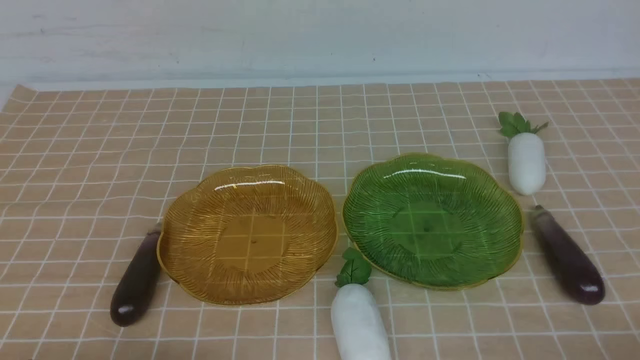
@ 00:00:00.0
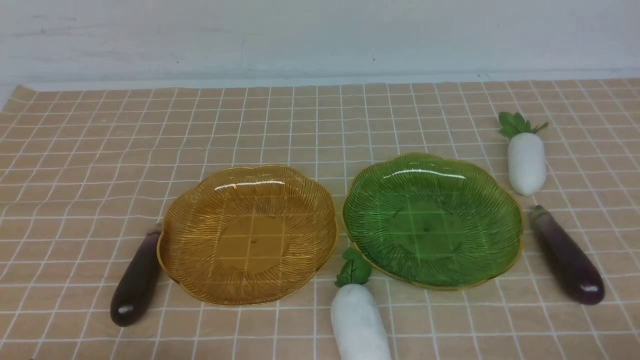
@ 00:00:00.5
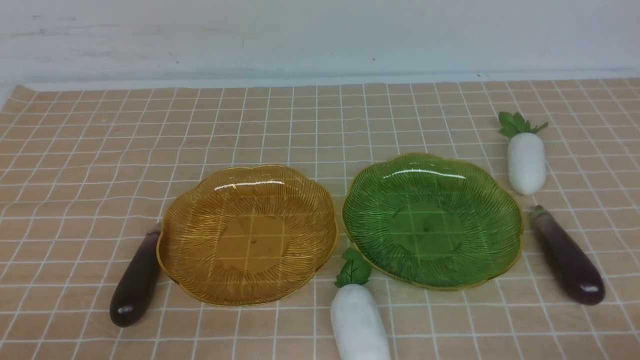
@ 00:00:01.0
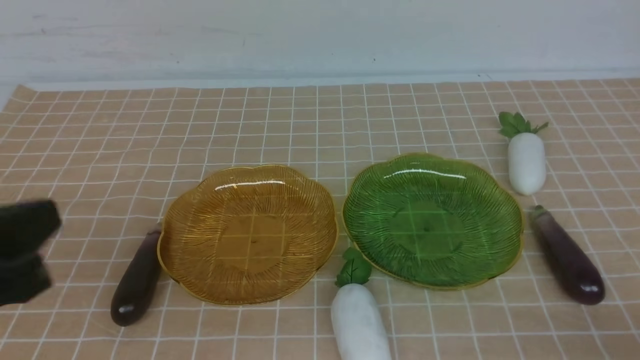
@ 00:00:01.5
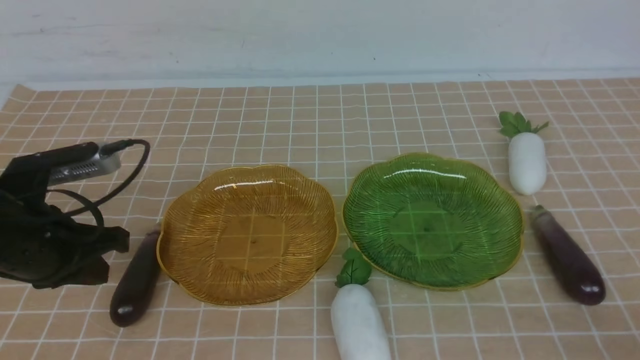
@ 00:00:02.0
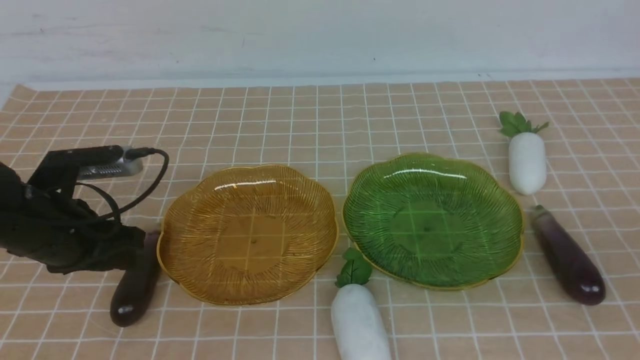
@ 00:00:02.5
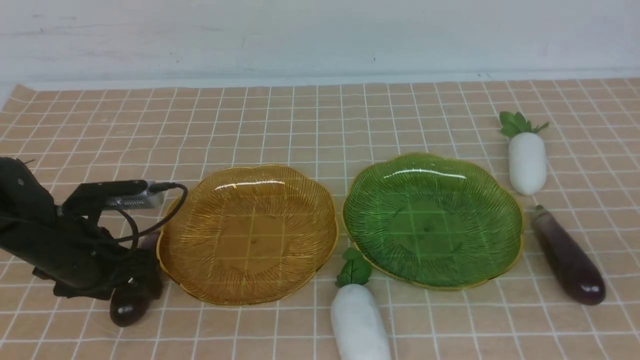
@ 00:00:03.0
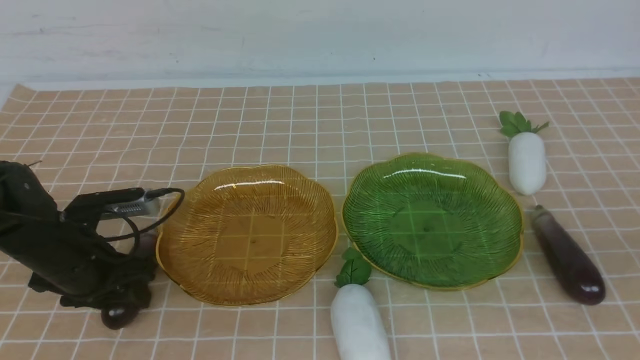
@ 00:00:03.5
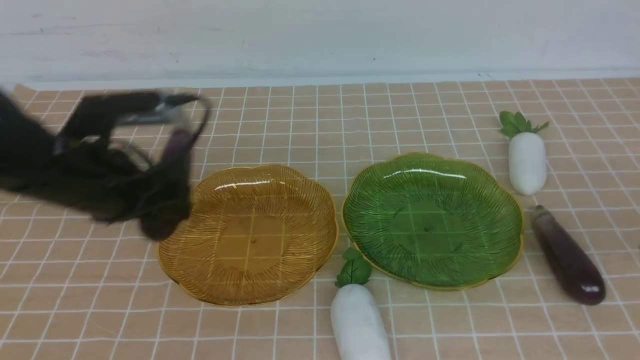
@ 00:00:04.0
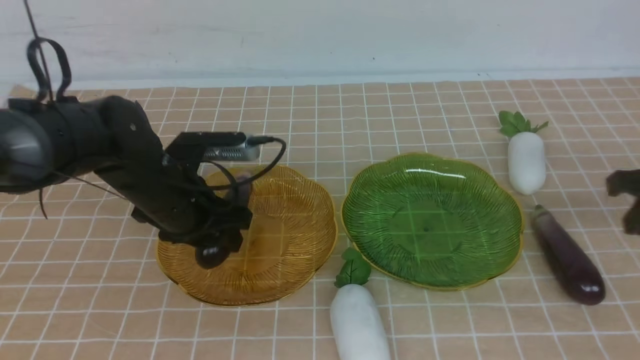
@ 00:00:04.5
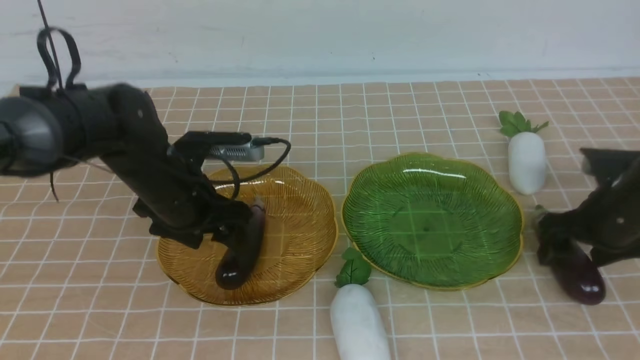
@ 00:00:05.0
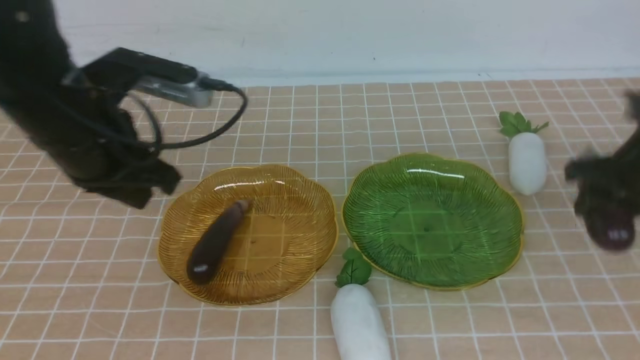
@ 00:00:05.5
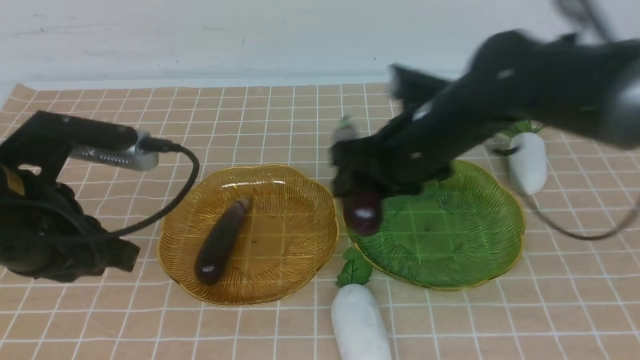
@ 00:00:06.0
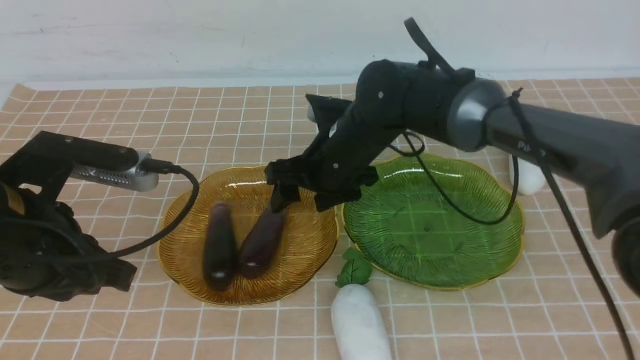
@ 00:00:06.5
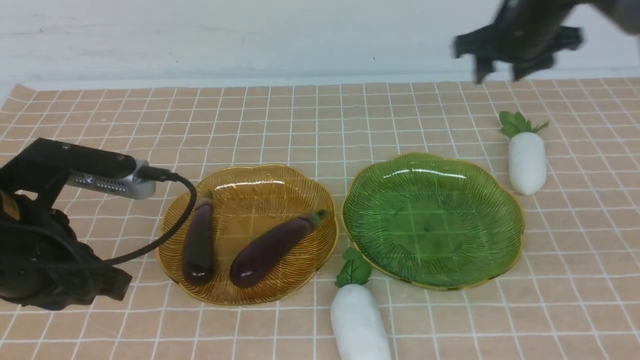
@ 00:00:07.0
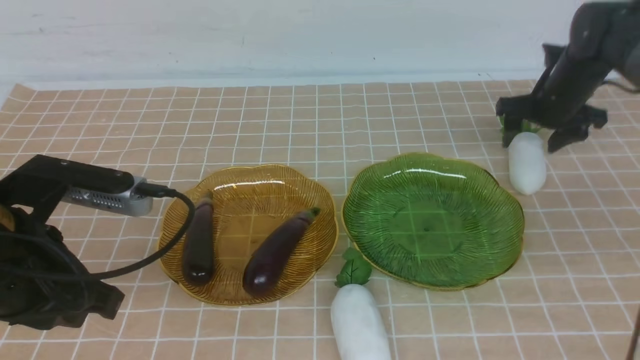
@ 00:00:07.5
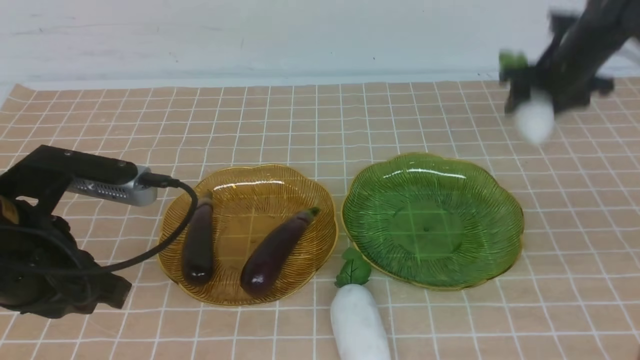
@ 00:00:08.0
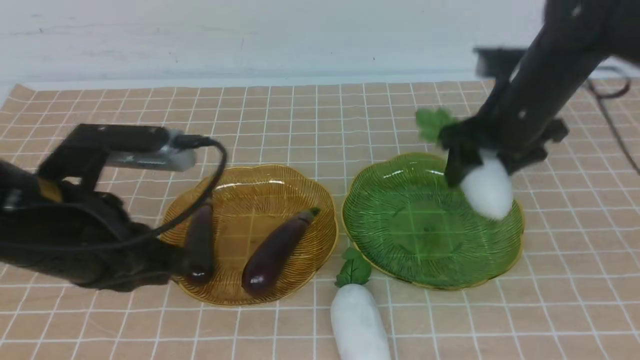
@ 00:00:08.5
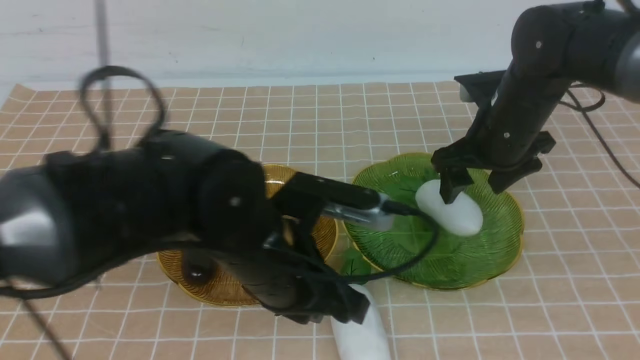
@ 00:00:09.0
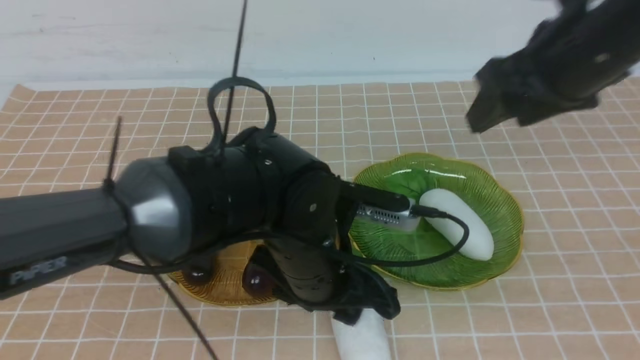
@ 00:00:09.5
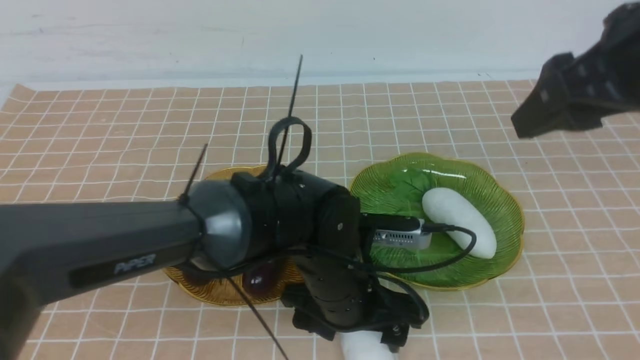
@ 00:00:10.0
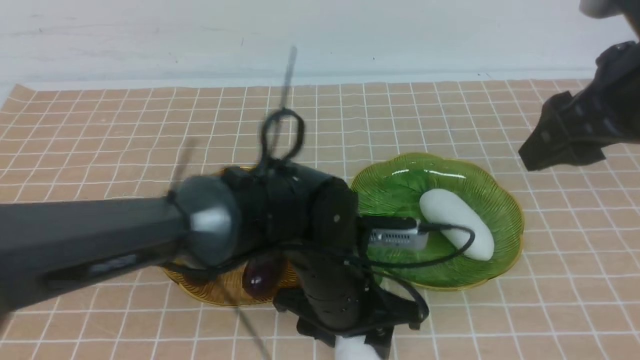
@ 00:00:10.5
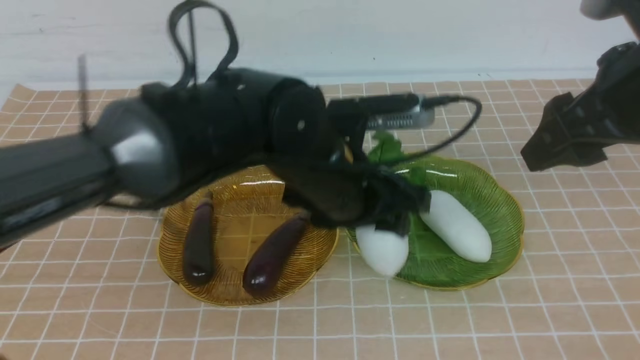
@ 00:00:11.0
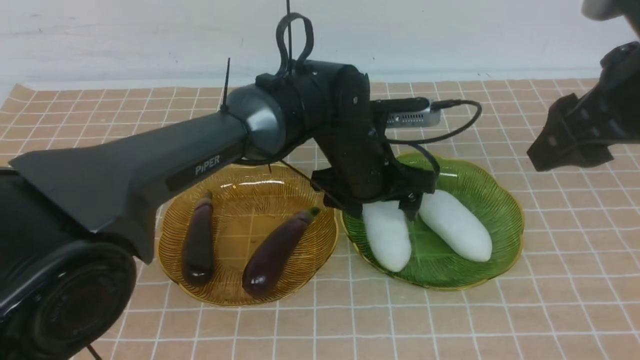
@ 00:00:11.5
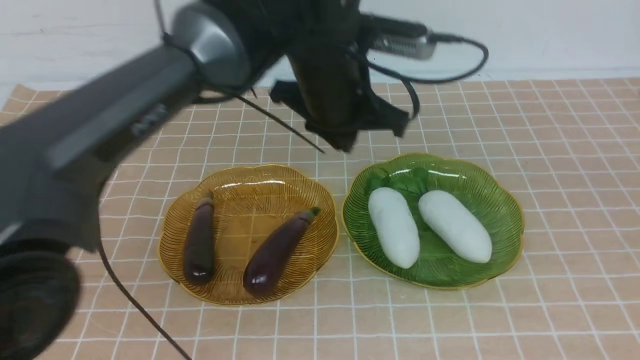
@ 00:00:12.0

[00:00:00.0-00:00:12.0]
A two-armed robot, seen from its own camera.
Step, 00:00:00.0 to 00:00:05.0: use the left arm to grab an eggplant and put it into the left plate.
Step, 00:00:05.5 to 00:00:06.5: use the right arm to grab an eggplant and put it into the left plate.
Step, 00:00:07.0 to 00:00:08.5: use the right arm to grab a radish and put it into the right plate.
Step, 00:00:09.0 to 00:00:11.5: use the left arm to grab a radish and put it into the right plate.
00:00:00.0 to 00:00:02.0: The left gripper shifts about 20 cm forward.
00:00:02.0 to 00:00:04.0: The left gripper heads to the right and forward, covering about 10 cm, and opens, while the right gripper goes roughly 20 cm forward.
00:00:04.0 to 00:00:06.0: The left gripper shifts roughly 10 cm backward, and closes. Meanwhile the right gripper heads to the left and forward, covering some 30 cm, and opens.
00:00:06.0 to 00:00:08.0: The right gripper moves to the right, some 15 cm.
00:00:08.0 to 00:00:10.0: The right gripper goes roughly 15 cm backward and upward; the left gripper moves to the right and downward, approximately 20 cm, and opens up.
00:00:10.0 to 00:00:12.0: The left gripper heads upward and forward, covering roughly 20 cm, and closes. Meanwhile the right gripper is displaced backward and to the right by approximately 15 cm, and closes its fingers.

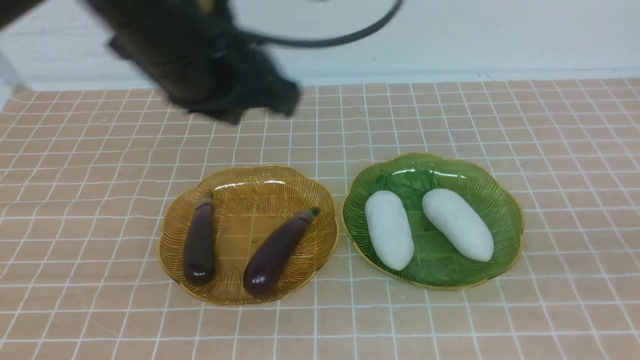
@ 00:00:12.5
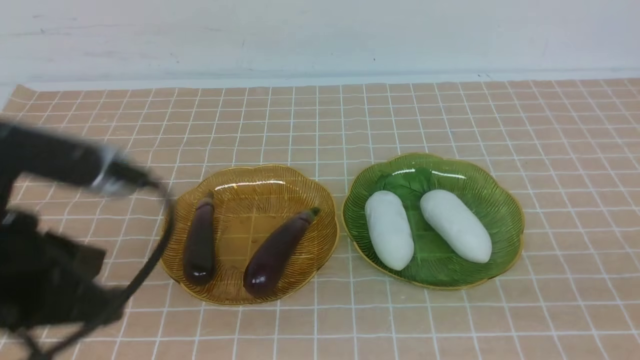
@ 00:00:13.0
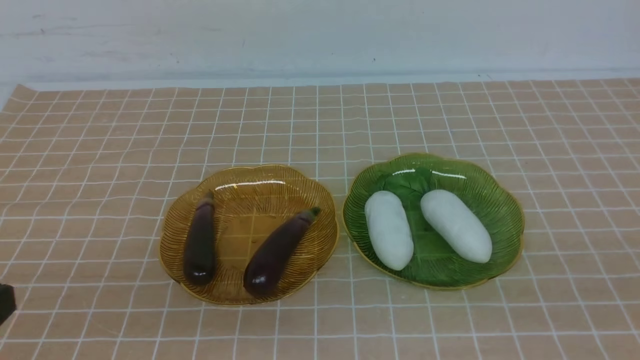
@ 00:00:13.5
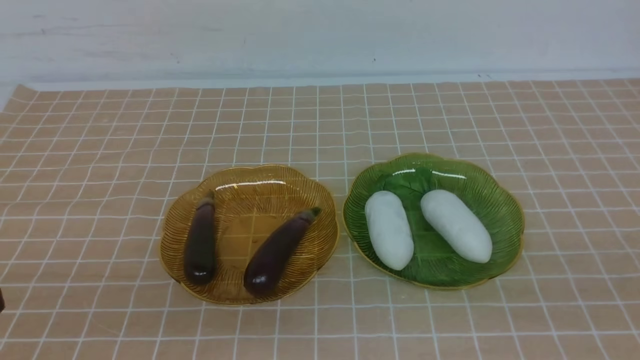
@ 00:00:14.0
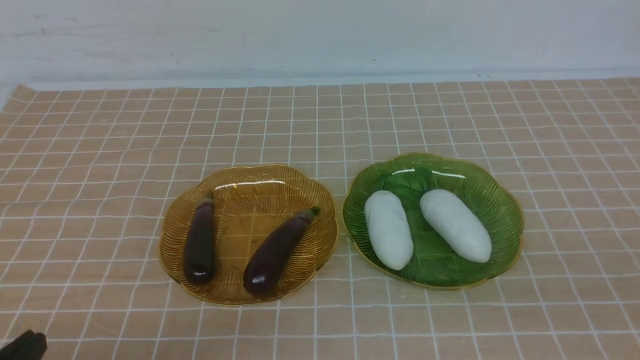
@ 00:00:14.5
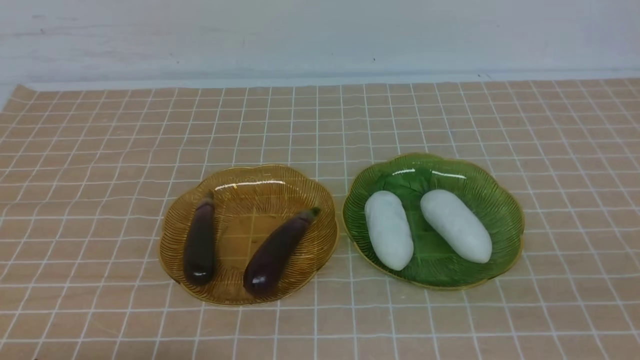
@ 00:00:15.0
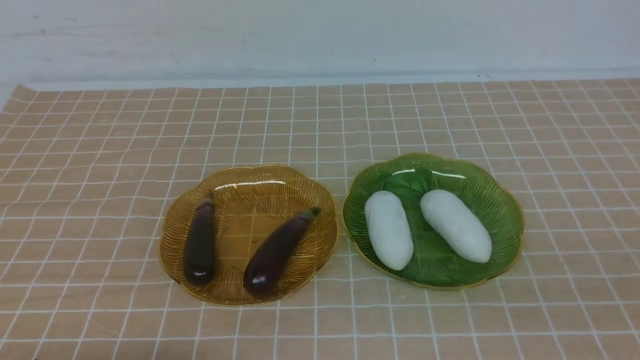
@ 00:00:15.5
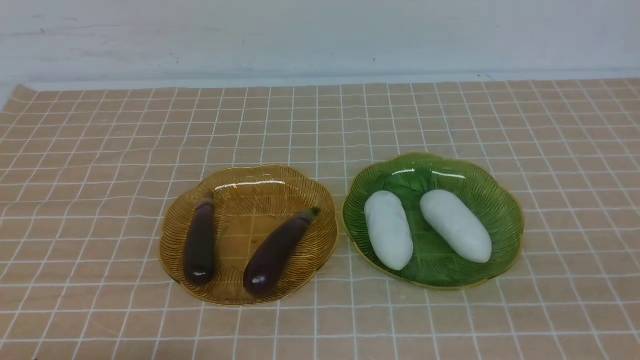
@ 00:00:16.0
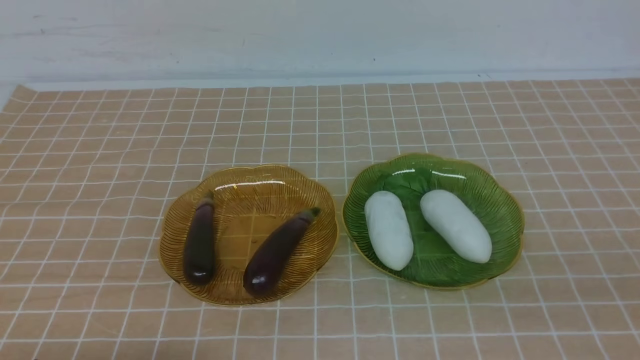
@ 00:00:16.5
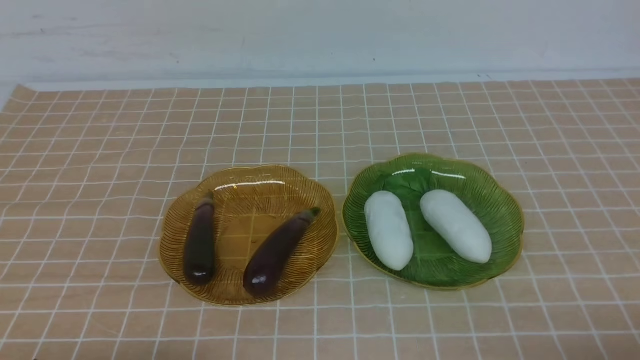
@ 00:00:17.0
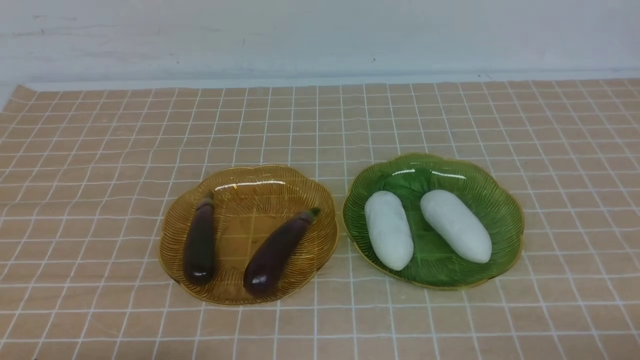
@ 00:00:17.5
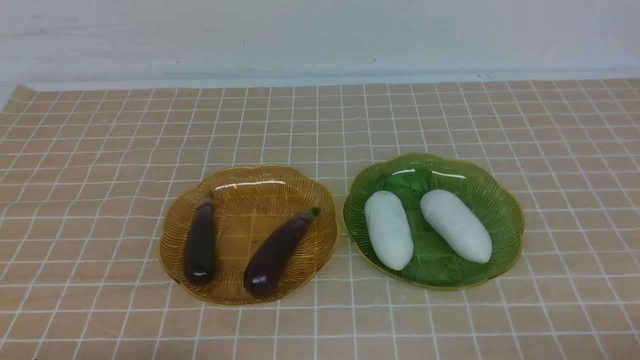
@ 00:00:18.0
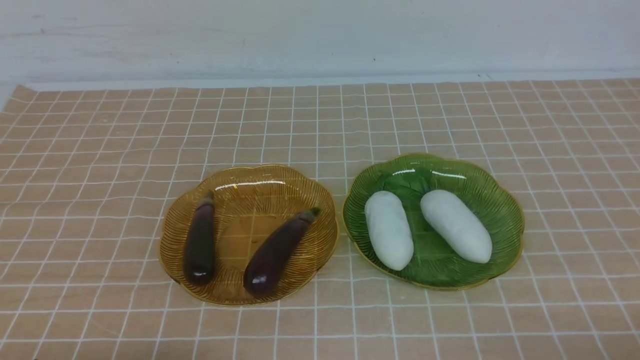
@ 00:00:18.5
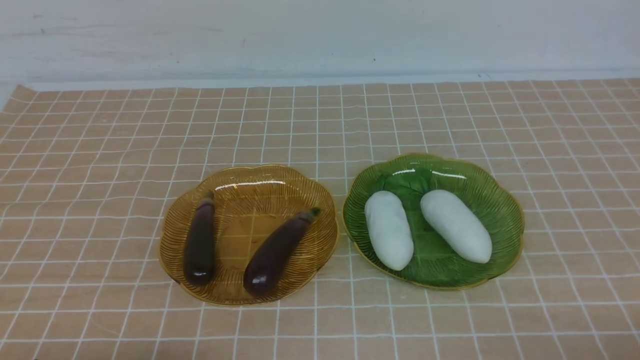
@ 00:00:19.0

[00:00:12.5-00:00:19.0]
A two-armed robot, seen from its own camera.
00:00:12.5 to 00:00:14.5: The left gripper goes approximately 30 cm downward, backward and to the left.
